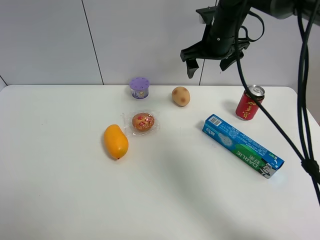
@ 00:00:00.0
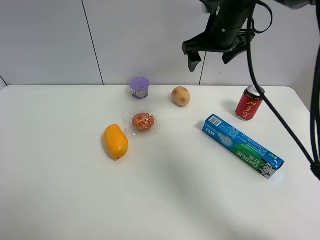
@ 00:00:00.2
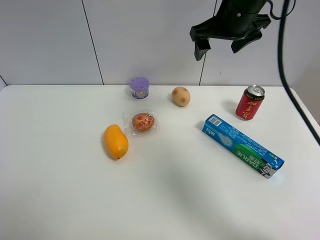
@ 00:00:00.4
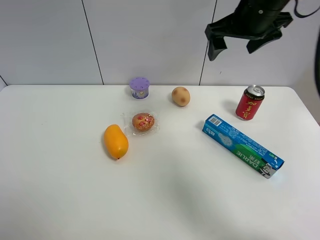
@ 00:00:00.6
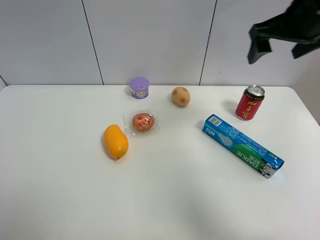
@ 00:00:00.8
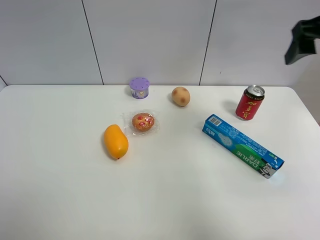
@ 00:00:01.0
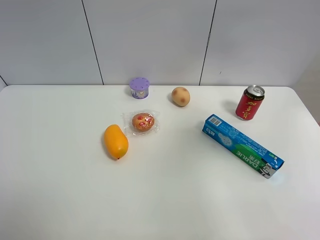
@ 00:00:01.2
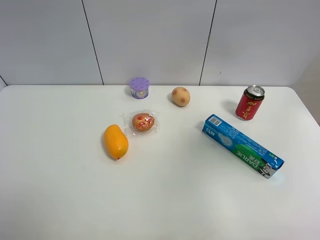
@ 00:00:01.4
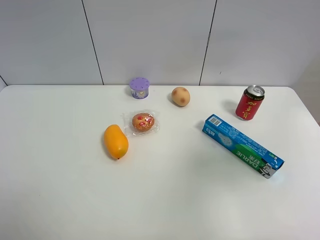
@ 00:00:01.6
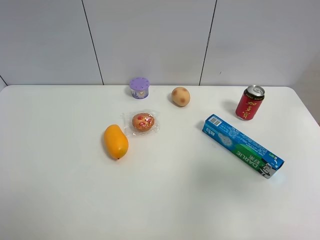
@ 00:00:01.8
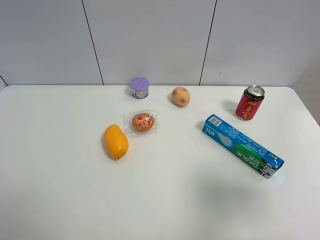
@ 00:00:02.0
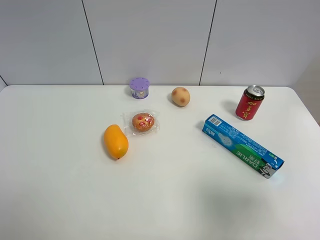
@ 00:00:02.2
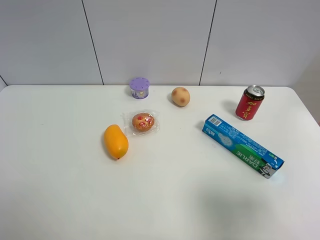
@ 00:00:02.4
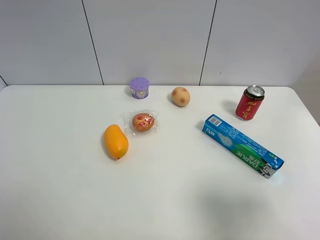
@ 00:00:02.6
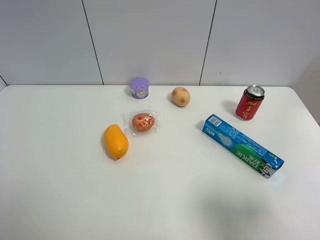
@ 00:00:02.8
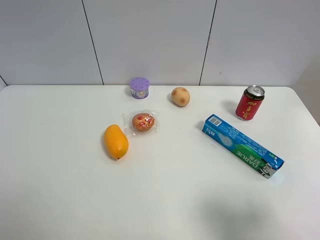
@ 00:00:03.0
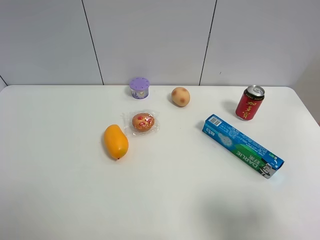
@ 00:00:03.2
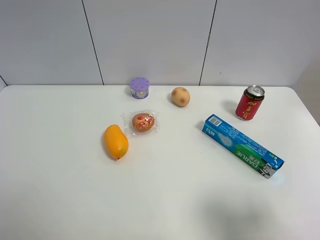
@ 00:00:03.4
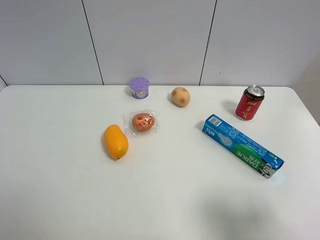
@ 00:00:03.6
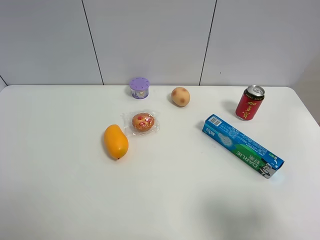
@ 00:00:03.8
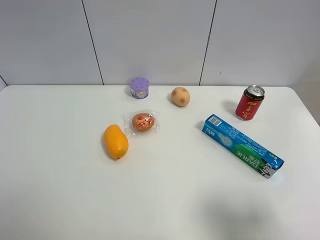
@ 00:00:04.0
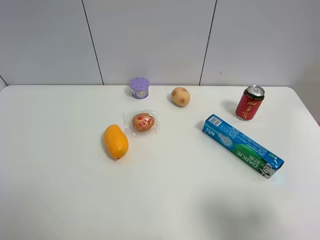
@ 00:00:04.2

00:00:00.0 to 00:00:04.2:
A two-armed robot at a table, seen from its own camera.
Task of the whole recording: the gripper move the object.
00:00:00.0 to 00:00:01.4: The right gripper moves backward, to the right and upward, some 35 cm.
00:00:01.4 to 00:00:02.8: The right gripper heads backward and downward, covering roughly 20 cm.
00:00:02.8 to 00:00:04.2: The two grippers keep their place.

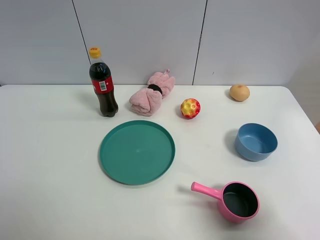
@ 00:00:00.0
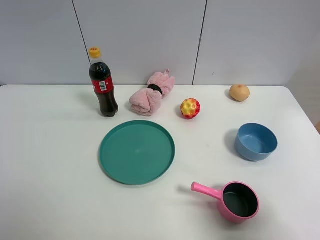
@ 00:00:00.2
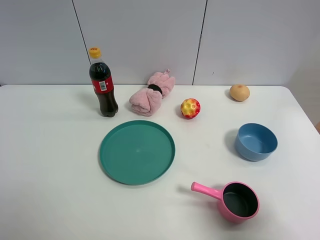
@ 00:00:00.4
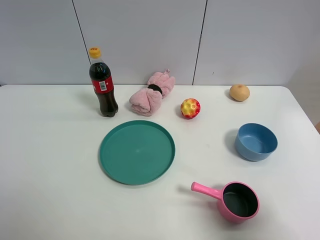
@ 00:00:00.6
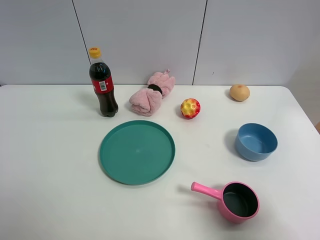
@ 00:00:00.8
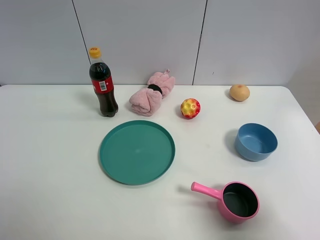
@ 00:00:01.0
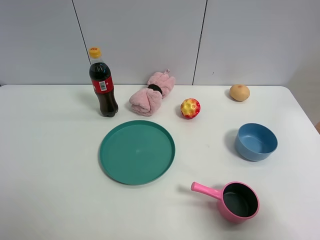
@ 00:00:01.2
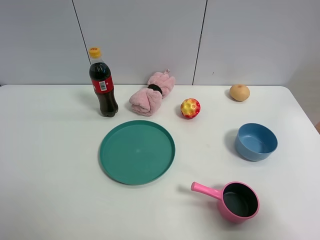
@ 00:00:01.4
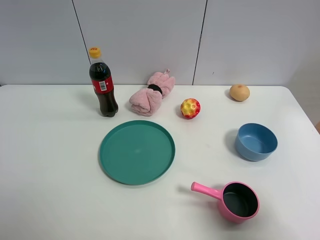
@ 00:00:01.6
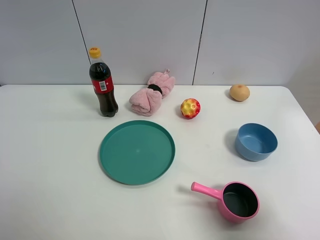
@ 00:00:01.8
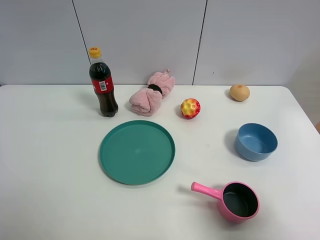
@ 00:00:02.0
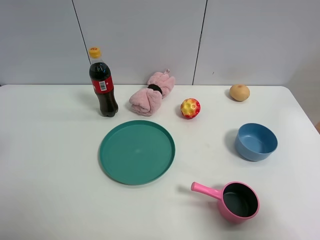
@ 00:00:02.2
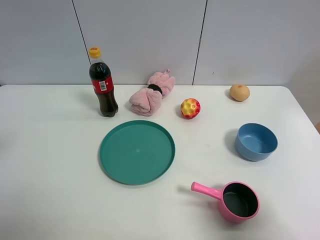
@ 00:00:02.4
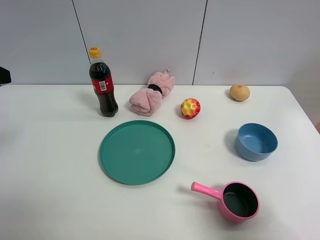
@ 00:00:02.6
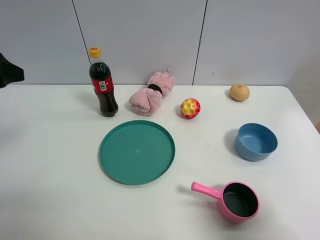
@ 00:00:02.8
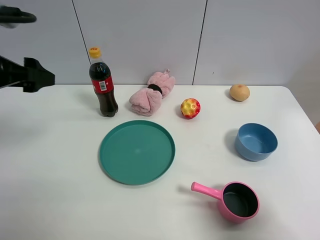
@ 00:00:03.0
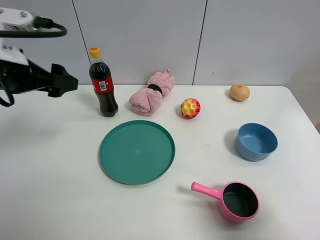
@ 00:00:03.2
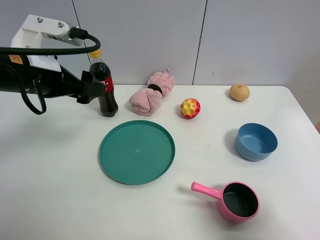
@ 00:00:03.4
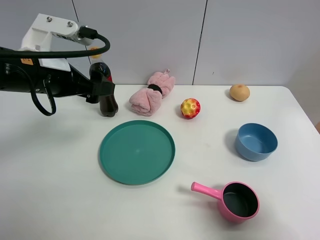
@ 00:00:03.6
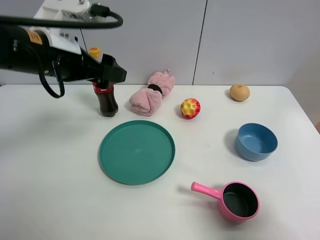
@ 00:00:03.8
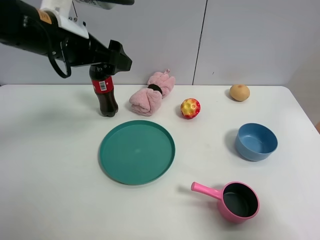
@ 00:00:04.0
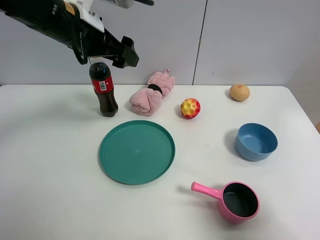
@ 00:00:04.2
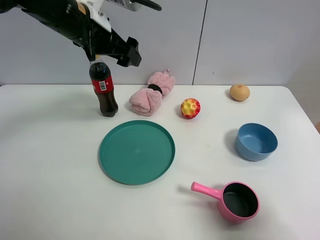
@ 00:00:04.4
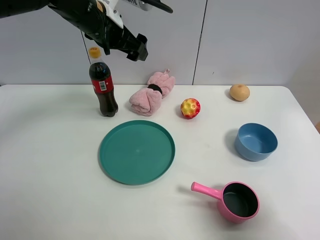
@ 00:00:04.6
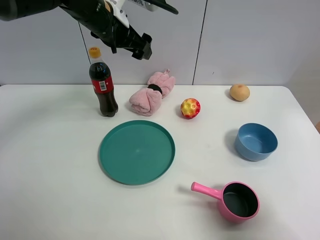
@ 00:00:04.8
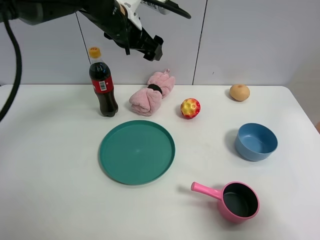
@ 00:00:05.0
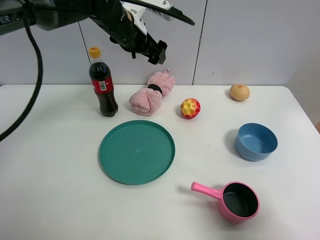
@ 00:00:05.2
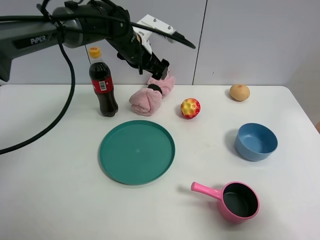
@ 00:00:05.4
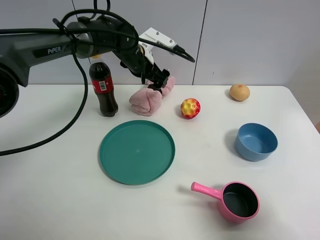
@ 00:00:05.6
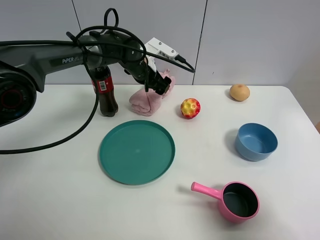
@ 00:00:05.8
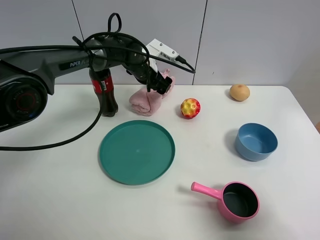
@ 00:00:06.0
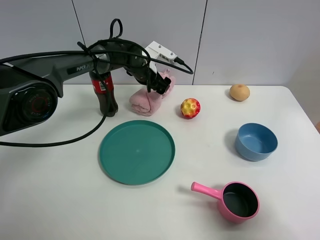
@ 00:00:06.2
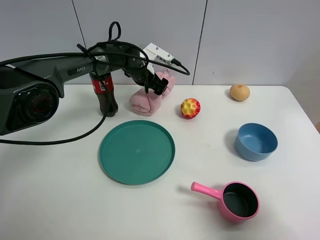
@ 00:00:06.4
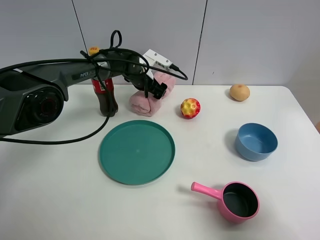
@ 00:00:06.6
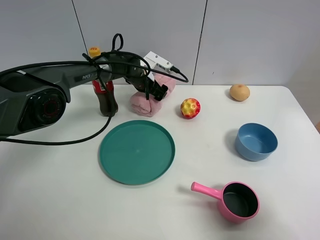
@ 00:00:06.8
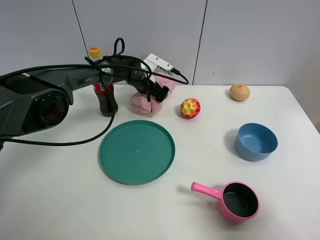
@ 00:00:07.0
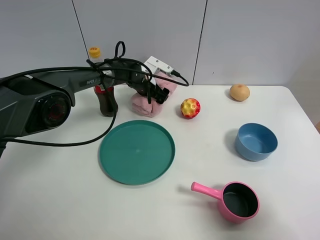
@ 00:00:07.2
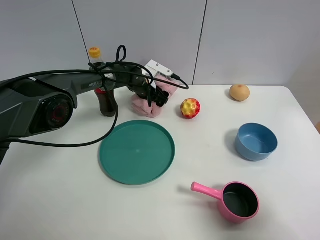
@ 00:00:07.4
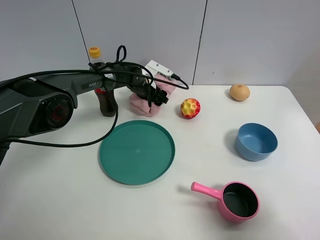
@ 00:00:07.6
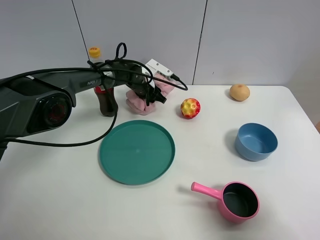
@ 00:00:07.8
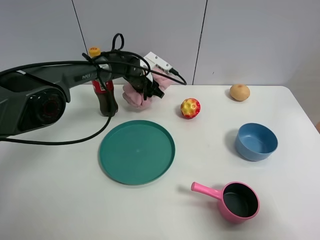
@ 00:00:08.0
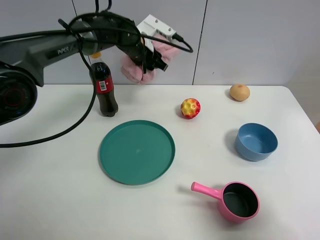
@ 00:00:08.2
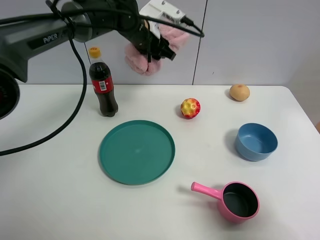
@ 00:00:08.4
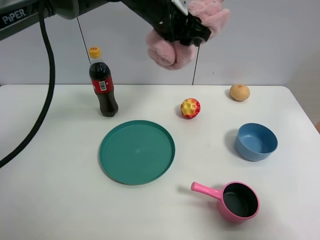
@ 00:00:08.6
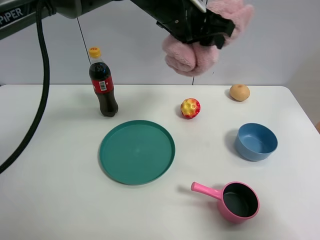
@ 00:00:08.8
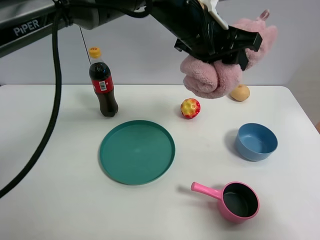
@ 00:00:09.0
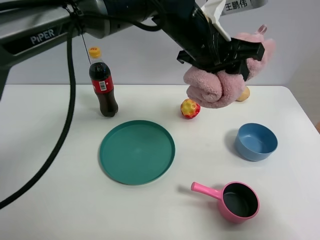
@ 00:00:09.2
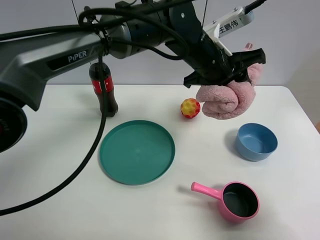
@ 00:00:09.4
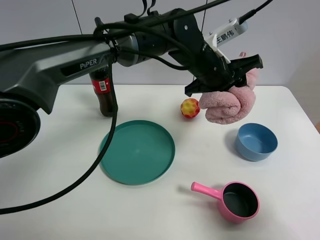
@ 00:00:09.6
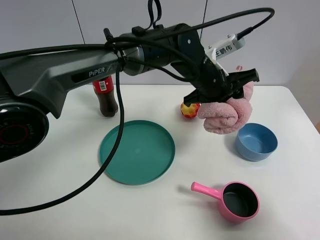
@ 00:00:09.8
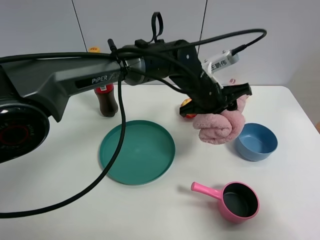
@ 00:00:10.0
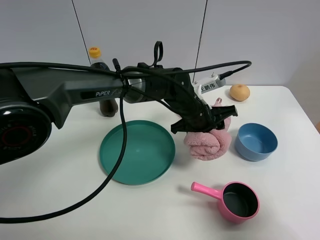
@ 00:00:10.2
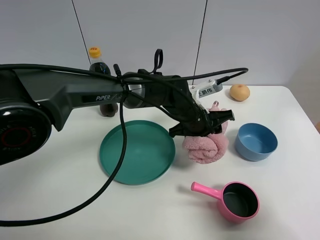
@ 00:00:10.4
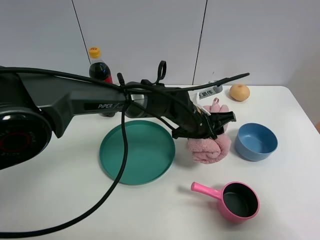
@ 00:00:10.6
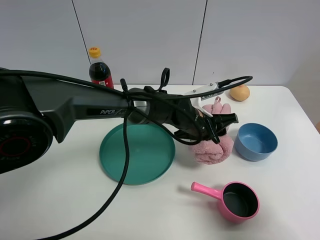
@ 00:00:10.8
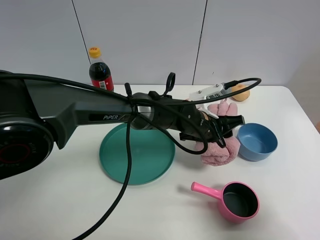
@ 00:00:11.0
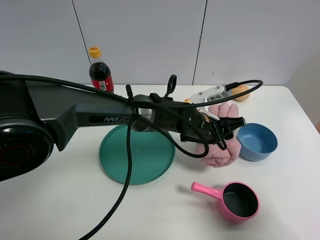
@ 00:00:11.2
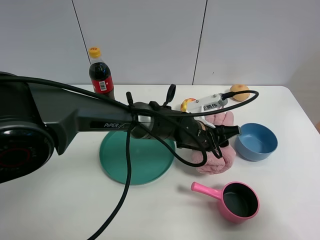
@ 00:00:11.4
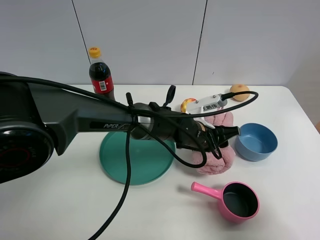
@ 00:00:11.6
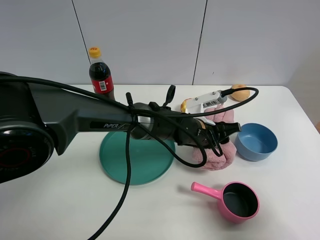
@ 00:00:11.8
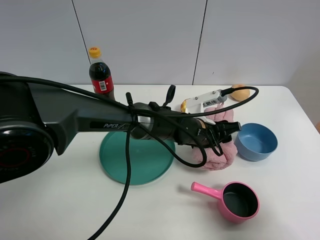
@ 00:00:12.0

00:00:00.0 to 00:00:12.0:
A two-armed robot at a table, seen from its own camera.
Task of the whole recording: the gripper move the object.
Step, 00:00:00.0 to 00:00:07.6: Grasp the pink towel with the left gripper.
00:00:01.6 to 00:00:03.0: The left gripper heads forward, covering some 20 cm.
00:00:03.0 to 00:00:04.4: The left gripper heads to the right and forward, covering roughly 20 cm.
00:00:04.4 to 00:00:06.0: The left gripper is displaced downward, forward and to the right by some 20 cm.
00:00:06.0 to 00:00:07.6: The left gripper shifts approximately 10 cm downward, and closes.
00:00:07.6 to 00:00:09.0: The left gripper travels upward, backward and to the right by about 35 cm.
00:00:09.0 to 00:00:10.4: The left gripper moves downward, about 20 cm.
00:00:10.4 to 00:00:12.0: The left gripper opens.

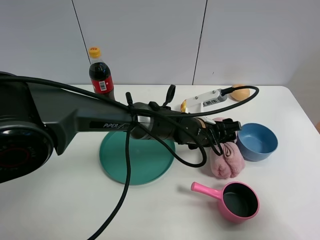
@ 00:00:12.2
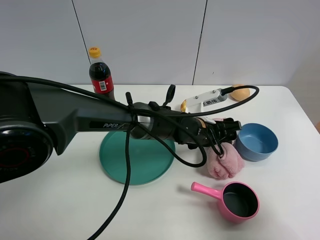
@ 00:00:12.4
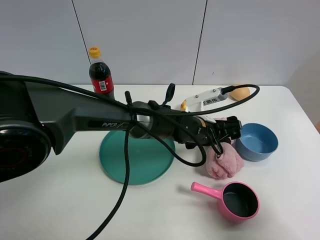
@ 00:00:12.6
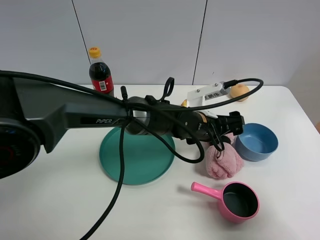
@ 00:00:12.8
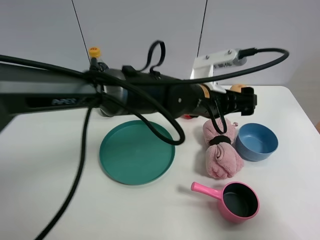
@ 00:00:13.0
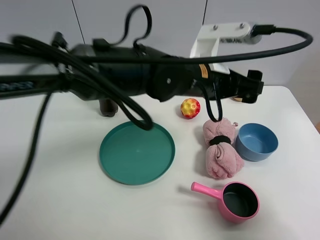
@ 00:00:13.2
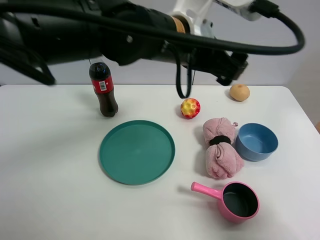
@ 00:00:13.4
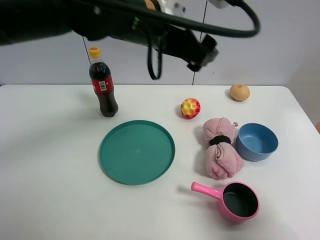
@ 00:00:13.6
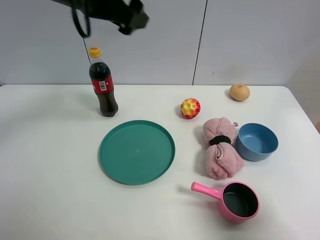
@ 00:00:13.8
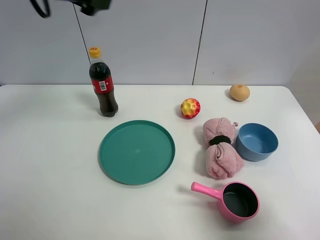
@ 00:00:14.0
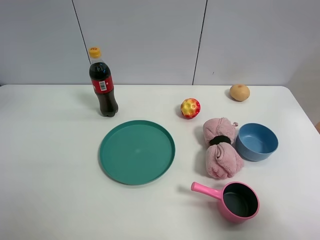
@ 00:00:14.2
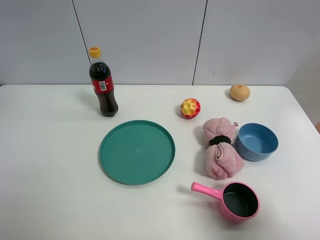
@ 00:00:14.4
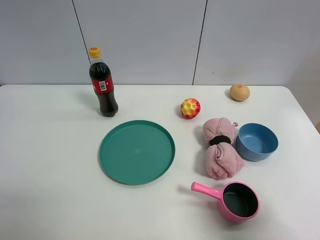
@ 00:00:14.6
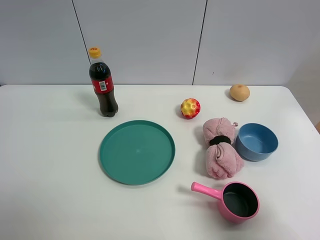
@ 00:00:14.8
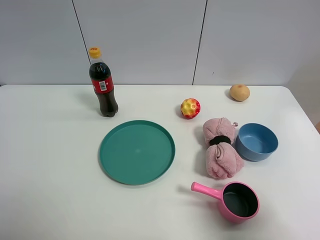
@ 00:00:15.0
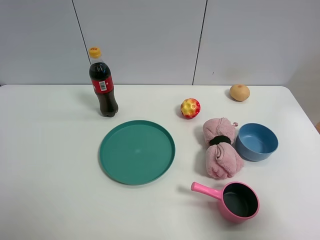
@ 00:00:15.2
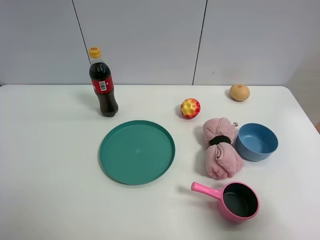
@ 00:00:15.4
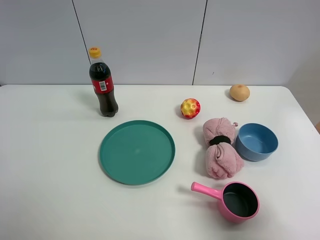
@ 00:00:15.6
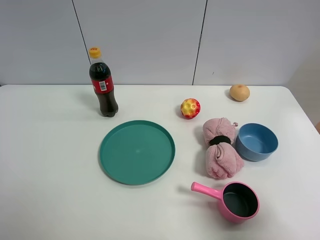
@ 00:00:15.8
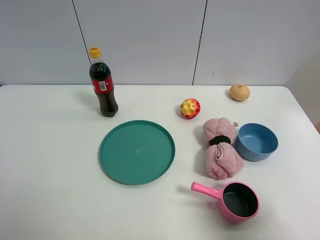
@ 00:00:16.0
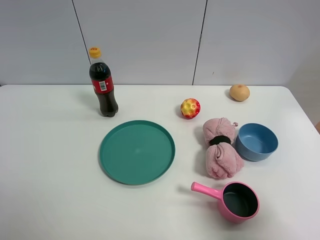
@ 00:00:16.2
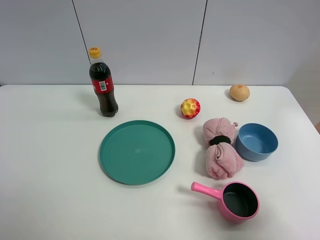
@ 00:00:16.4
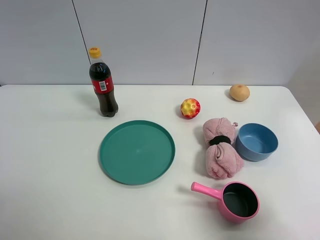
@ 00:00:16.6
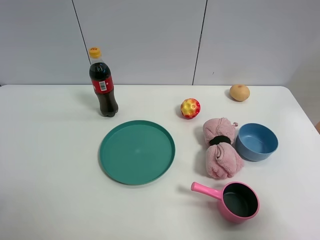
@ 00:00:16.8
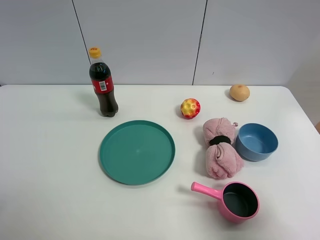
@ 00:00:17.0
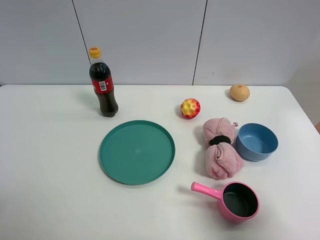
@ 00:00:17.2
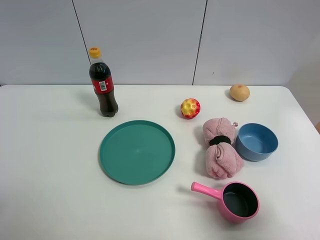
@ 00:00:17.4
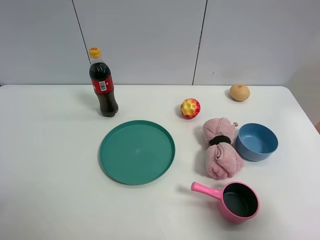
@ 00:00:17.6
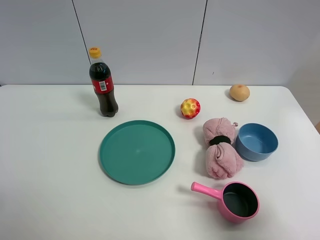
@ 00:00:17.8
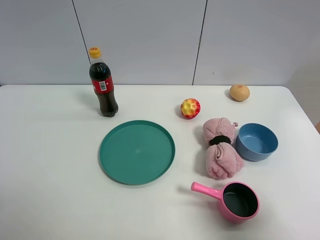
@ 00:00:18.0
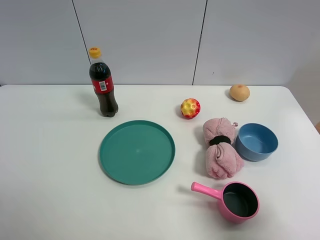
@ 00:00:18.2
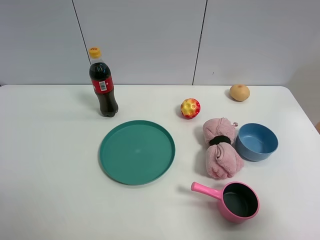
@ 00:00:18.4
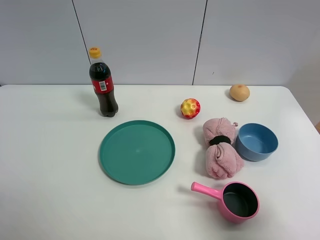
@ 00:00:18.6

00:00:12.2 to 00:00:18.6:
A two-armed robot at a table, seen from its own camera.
Task of the whole recording: the gripper move the object.
00:00:12.2 to 00:00:13.8: The left gripper travels upward and to the left by about 35 cm, and opens up.
00:00:13.8 to 00:00:15.4: The left gripper moves backward and to the left, about 30 cm.
